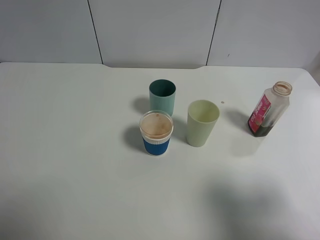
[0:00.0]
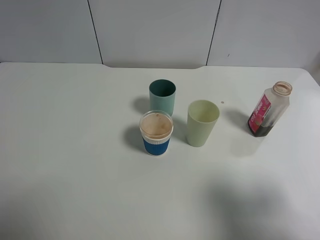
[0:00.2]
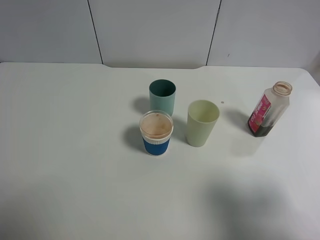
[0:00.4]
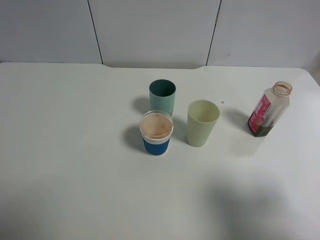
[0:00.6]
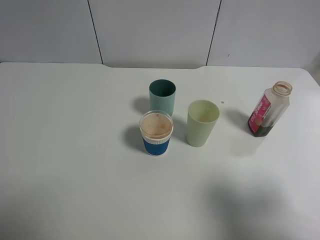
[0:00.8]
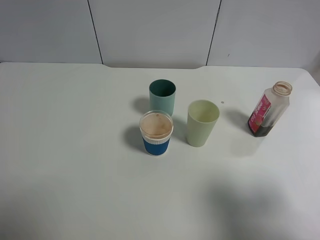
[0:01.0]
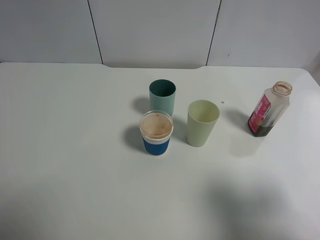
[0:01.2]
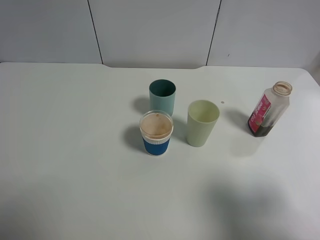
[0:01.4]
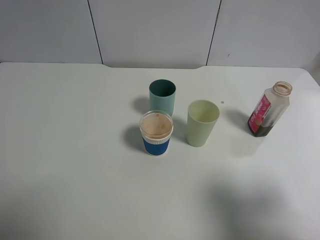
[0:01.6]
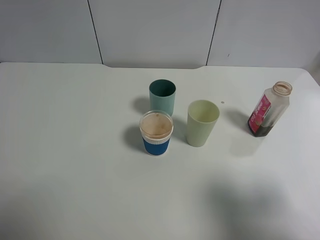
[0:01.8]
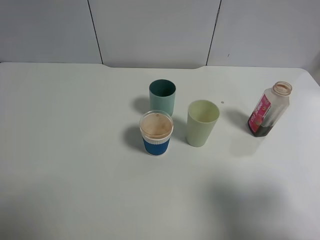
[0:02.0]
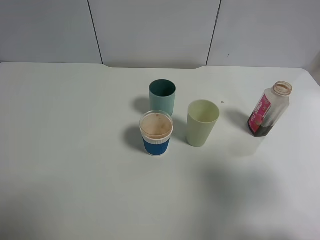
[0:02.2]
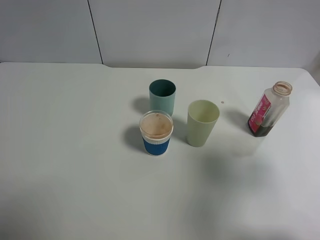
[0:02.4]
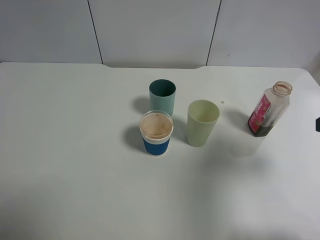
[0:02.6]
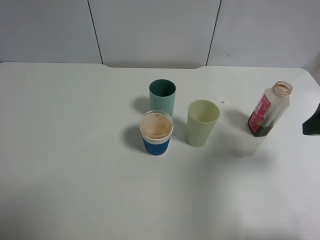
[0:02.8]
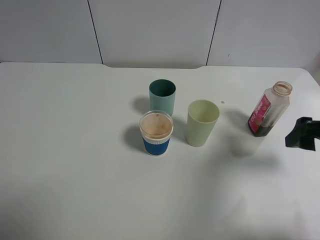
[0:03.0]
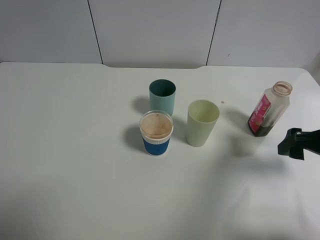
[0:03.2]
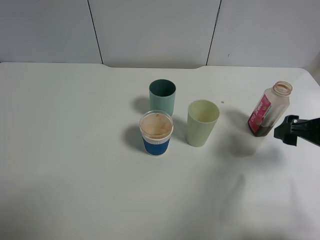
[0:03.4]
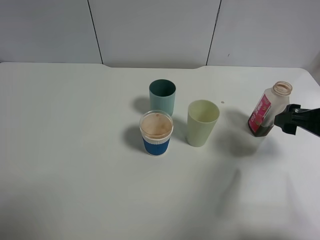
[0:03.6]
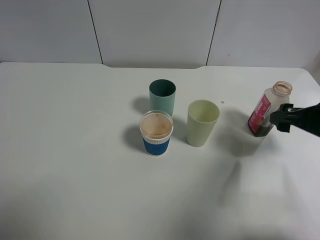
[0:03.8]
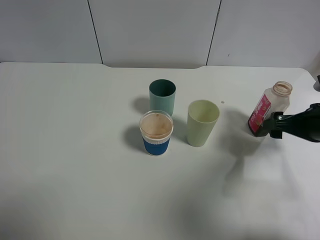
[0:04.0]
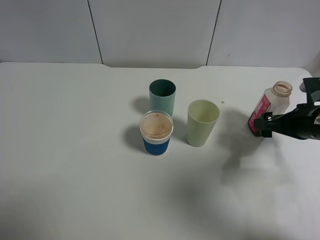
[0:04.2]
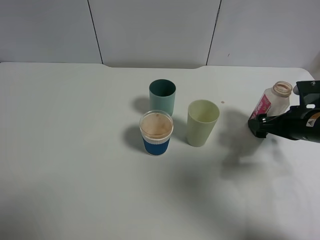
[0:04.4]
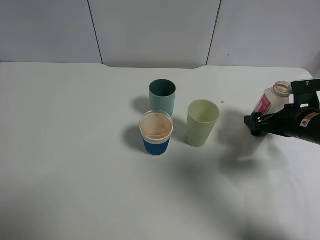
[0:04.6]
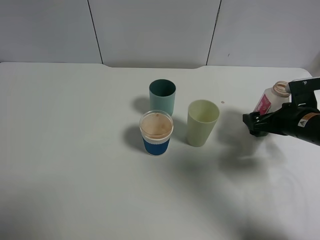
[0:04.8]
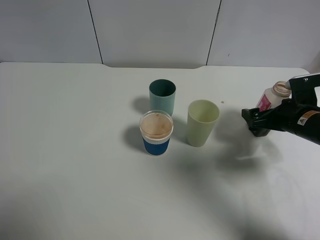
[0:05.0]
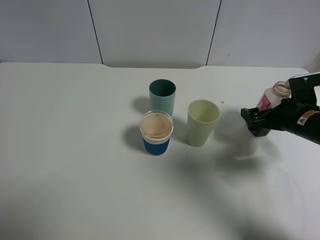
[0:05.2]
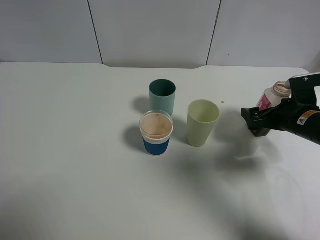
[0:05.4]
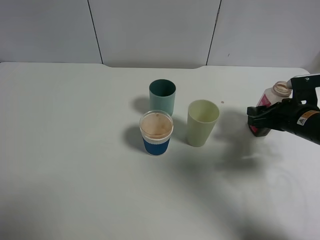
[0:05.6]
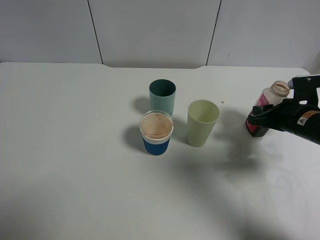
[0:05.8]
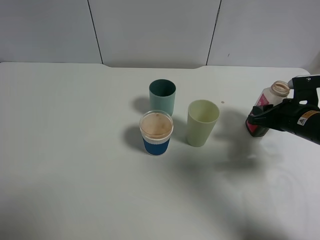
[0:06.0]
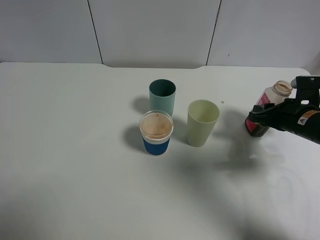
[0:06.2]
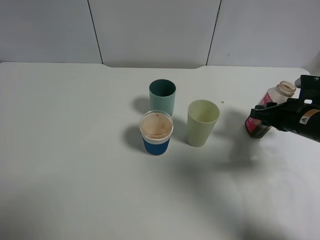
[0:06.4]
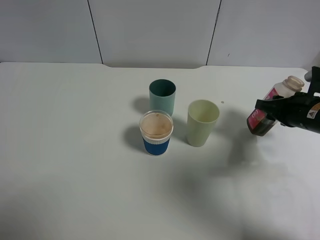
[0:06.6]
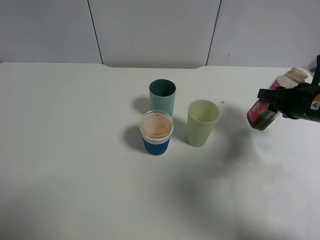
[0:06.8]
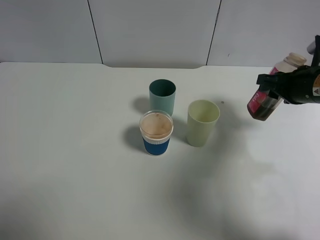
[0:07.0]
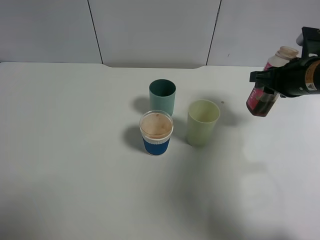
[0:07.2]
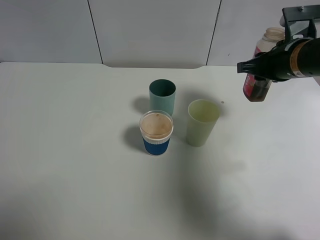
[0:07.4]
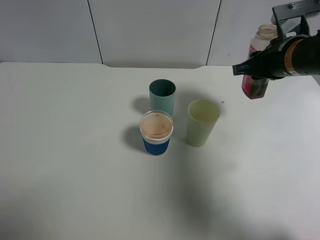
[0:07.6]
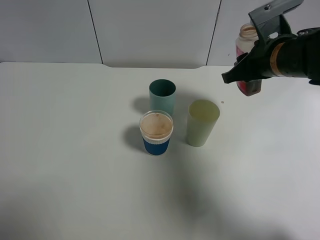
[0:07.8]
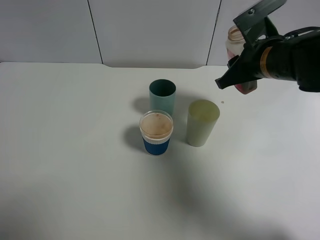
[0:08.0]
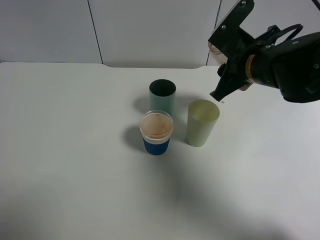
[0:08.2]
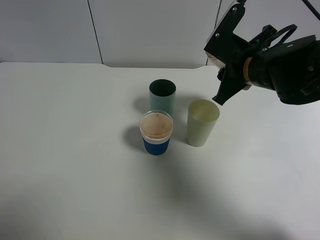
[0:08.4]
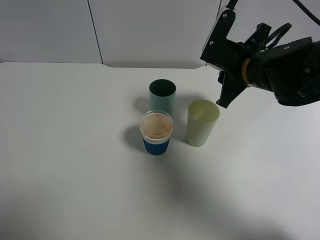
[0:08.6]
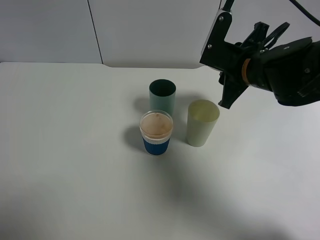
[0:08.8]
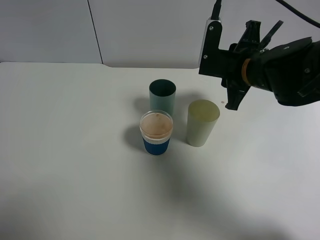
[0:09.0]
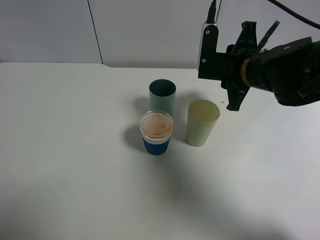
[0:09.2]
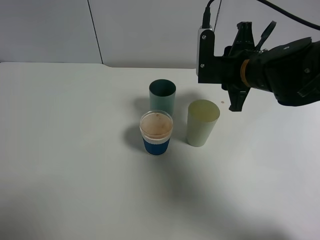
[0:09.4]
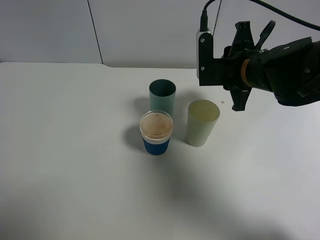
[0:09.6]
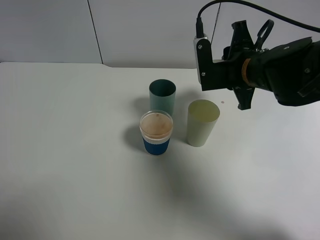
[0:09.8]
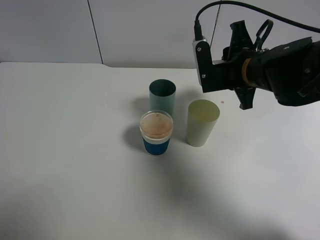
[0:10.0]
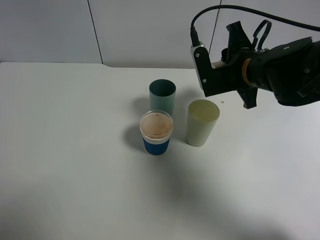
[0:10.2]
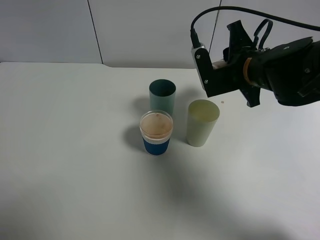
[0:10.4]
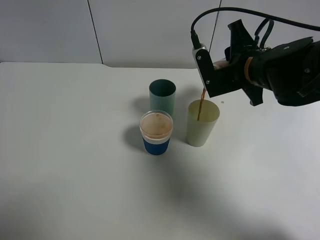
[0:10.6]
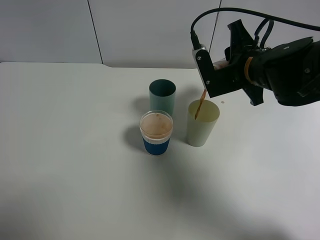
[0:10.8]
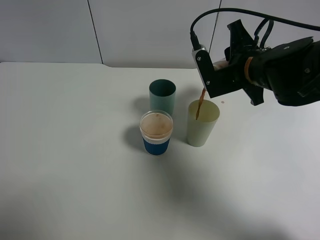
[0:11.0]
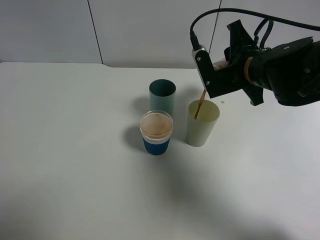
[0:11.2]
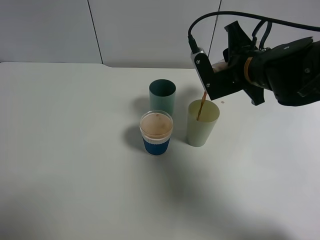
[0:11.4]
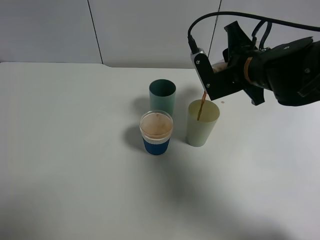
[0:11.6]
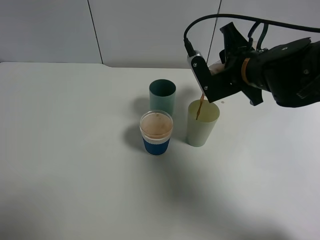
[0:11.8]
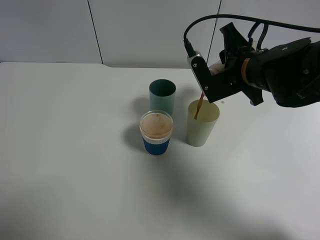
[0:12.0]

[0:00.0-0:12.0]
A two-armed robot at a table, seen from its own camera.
Task of the whole recording: use a gripper to hold the bottle of the drink and pour it into a random cup.
Step, 0:00.0 to 0:06.0: Grasp the cranberry juice bottle with the right gripper.
0:00.0 to 0:01.6: Both grippers stay put.
0:01.6 to 0:03.0: The right gripper goes about 20 cm forward and downward.
0:03.0 to 0:04.4: The right gripper travels downward and forward by approximately 10 cm.
0:04.4 to 0:06.0: The right gripper closes its fingers.
0:06.0 to 0:07.6: The right gripper travels upward and to the left by approximately 15 cm.
0:07.6 to 0:09.0: The right gripper is displaced to the left by some 5 cm.
0:10.4 to 0:12.0: The grippers make only small movements.

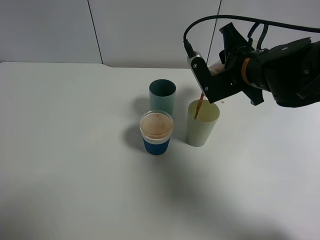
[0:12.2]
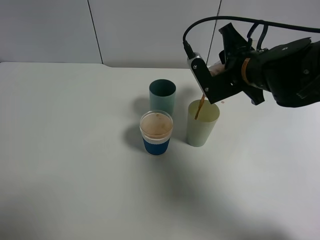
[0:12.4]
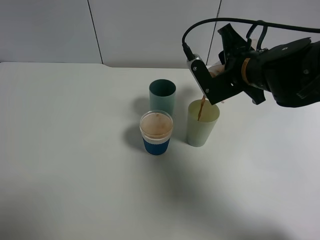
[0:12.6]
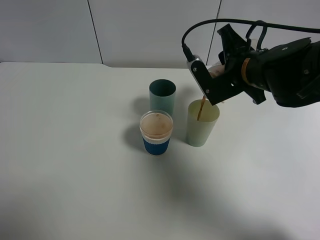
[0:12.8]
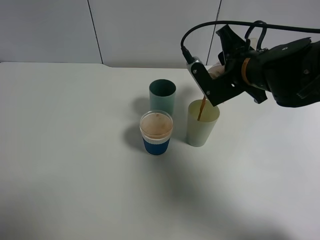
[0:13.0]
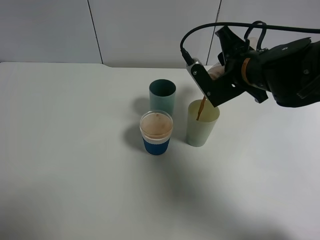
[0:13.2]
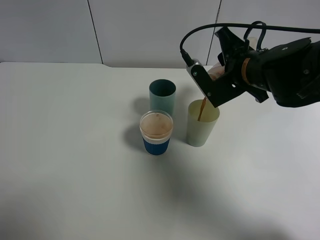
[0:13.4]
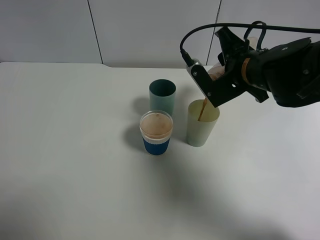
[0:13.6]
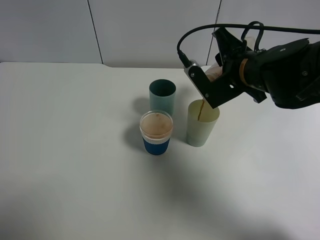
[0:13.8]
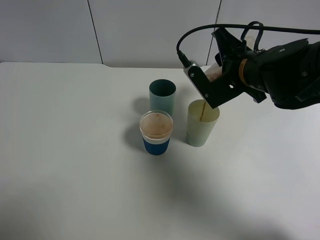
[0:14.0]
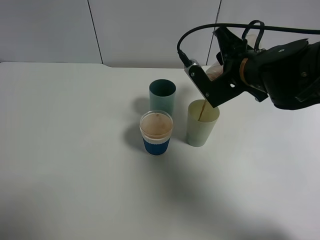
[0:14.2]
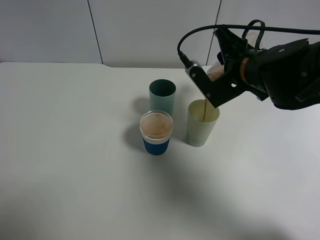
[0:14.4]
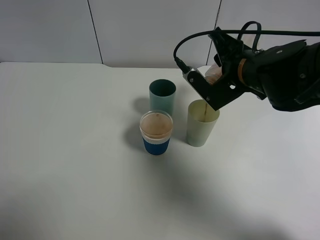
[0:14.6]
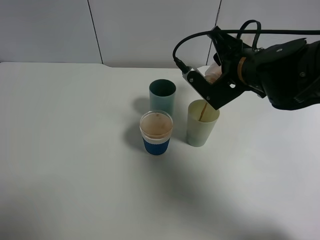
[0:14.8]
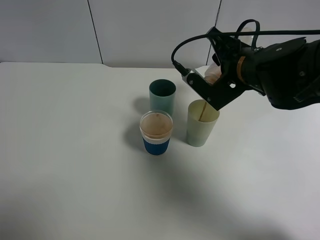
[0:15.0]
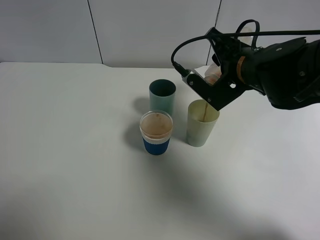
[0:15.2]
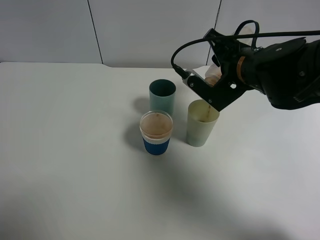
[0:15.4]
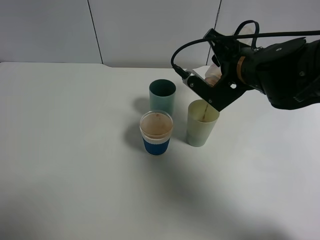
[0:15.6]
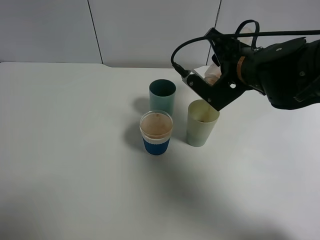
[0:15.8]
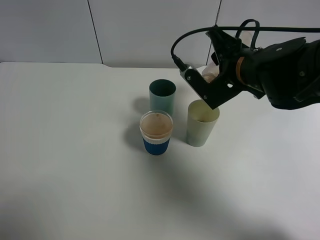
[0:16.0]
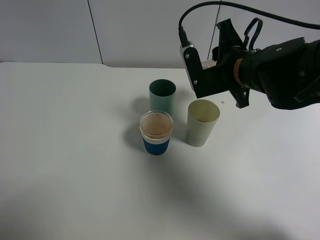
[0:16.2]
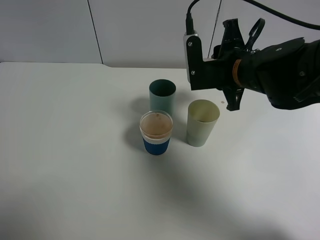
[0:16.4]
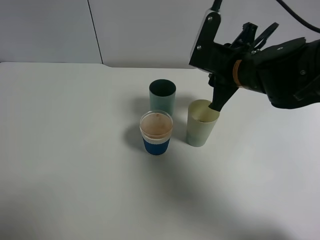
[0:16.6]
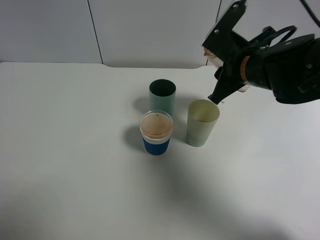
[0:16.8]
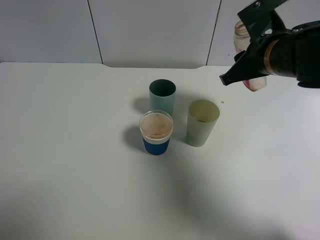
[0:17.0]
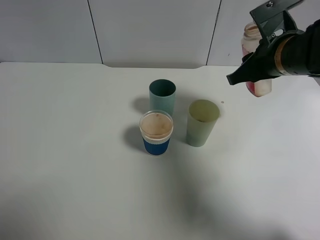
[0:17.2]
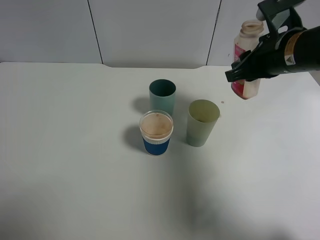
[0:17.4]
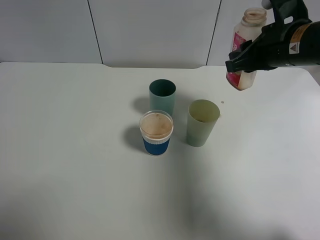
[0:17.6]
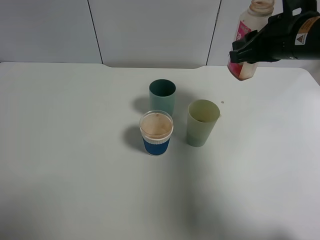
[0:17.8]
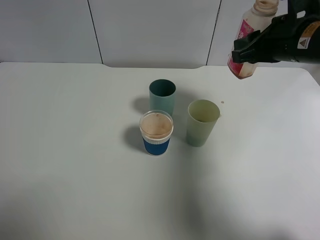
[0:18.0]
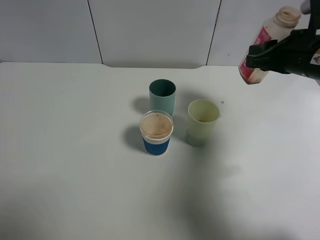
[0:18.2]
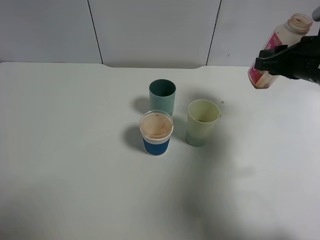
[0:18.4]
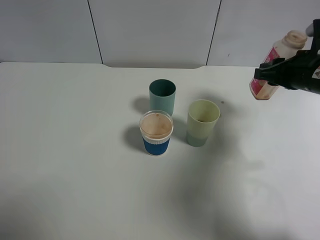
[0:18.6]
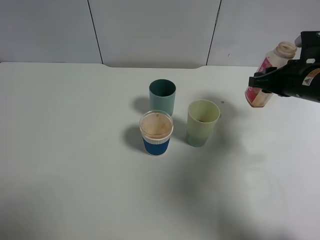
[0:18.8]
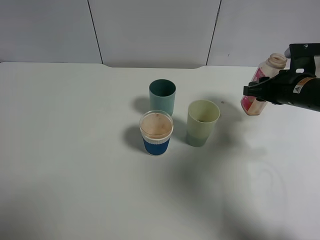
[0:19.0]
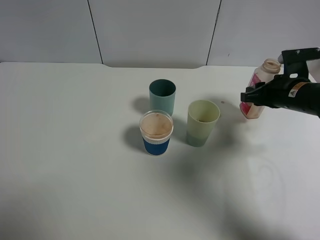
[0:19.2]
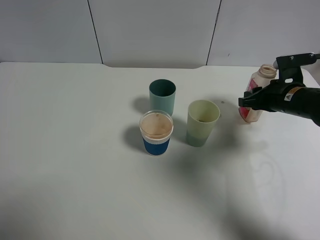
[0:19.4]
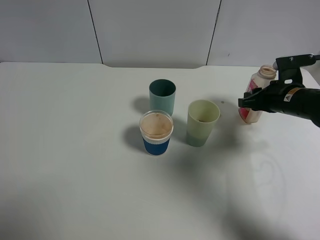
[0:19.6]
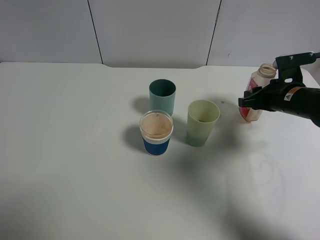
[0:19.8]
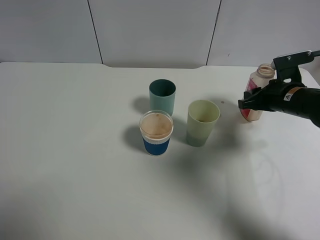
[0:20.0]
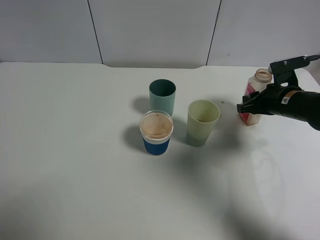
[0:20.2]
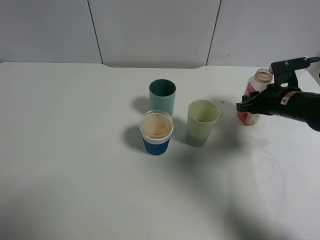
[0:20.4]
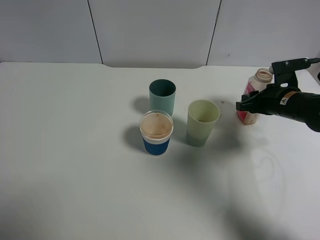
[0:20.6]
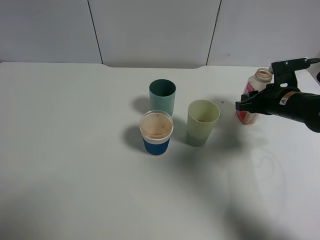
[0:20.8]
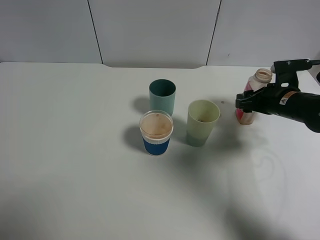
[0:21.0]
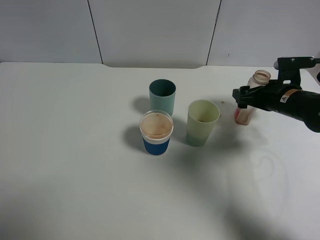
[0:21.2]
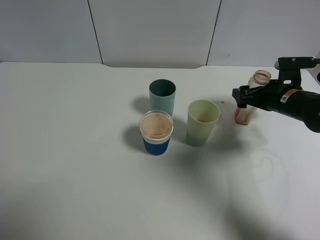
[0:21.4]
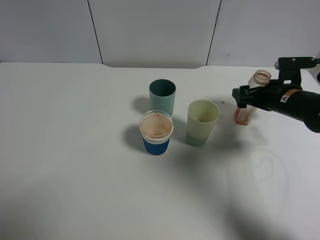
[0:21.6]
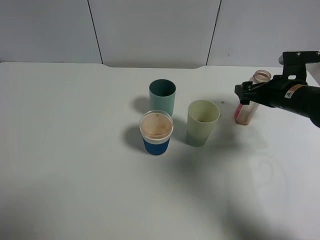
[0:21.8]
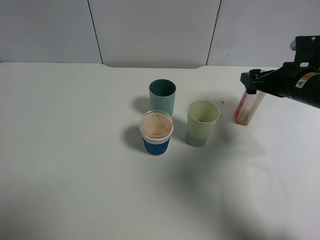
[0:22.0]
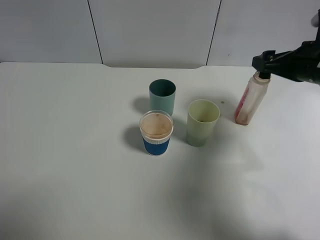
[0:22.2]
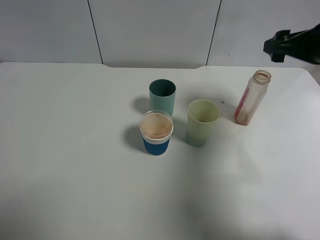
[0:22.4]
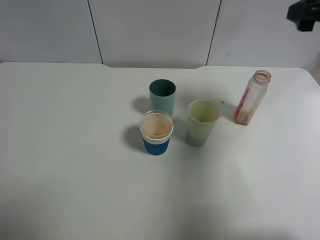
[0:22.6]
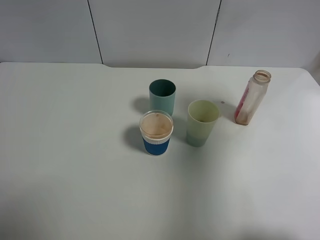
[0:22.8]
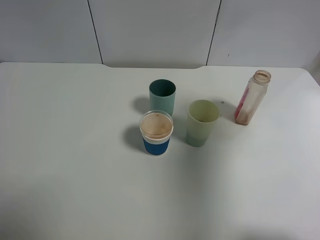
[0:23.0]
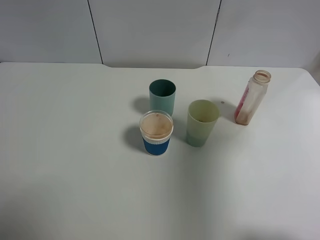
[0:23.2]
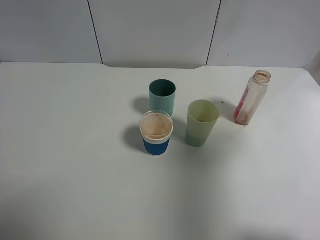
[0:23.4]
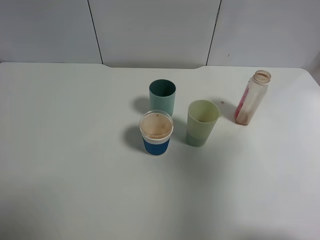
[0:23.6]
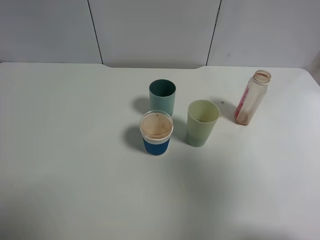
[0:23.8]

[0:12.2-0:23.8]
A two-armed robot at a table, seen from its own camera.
Task of the whole recording: use a gripper to hold the bottle of the drink and pour it into a random cup.
Step, 0:12.2 to 0:16.0: Pour the cranberry juice into the White Plastic Cup with the right gripper.
Step, 0:16.2 to 0:21.2: Place the cranberry juice bottle on the table with the right gripper.
0:12.2 to 0:15.0: The grippers stay close to where they were, moving slightly.
0:16.6 to 0:18.0: The right gripper heads to the right, covering about 10 cm.
0:18.0 to 0:19.4: The right gripper travels downward and to the right by approximately 15 cm.
0:19.4 to 0:21.0: The right gripper opens its fingers.
0:21.0 to 0:22.4: The right gripper goes some 15 cm upward.
0:22.4 to 0:23.8: The right gripper heads backward, covering roughly 25 cm.
